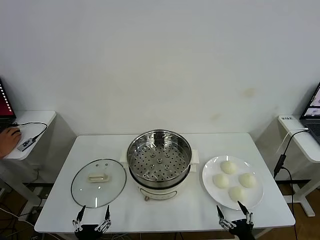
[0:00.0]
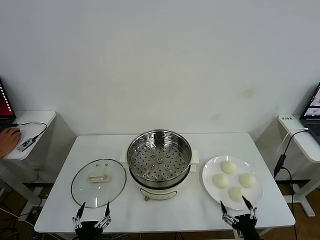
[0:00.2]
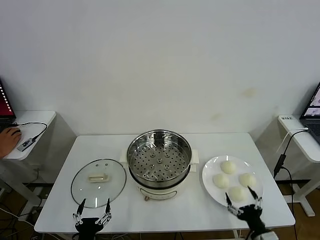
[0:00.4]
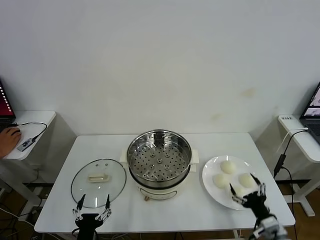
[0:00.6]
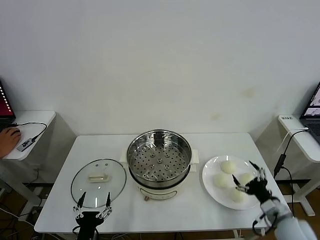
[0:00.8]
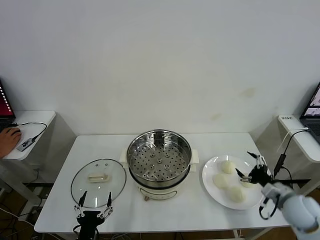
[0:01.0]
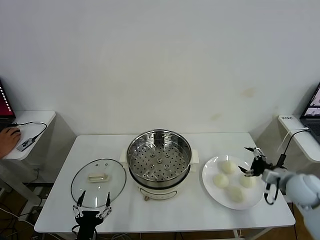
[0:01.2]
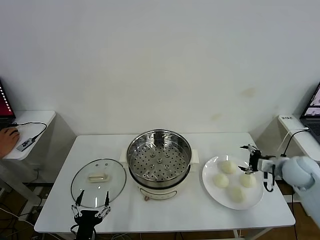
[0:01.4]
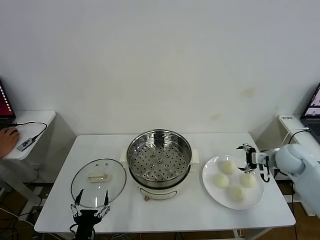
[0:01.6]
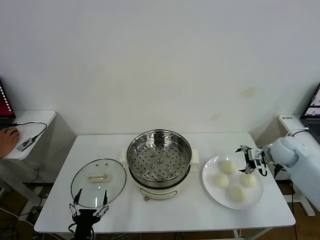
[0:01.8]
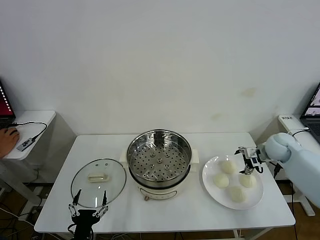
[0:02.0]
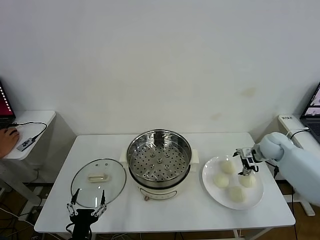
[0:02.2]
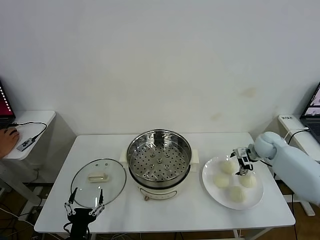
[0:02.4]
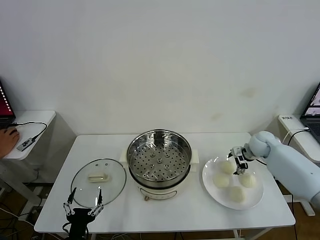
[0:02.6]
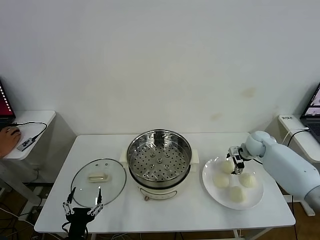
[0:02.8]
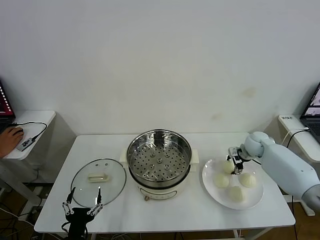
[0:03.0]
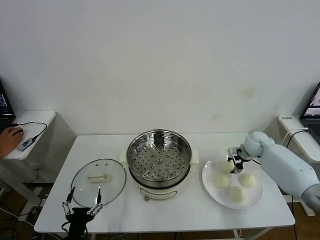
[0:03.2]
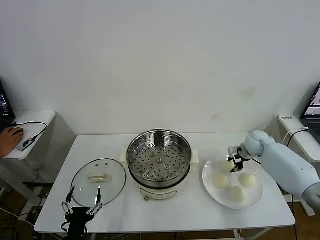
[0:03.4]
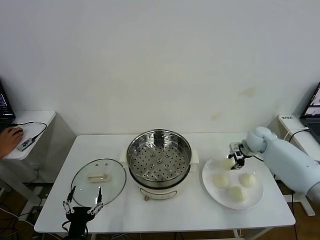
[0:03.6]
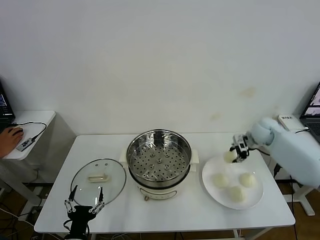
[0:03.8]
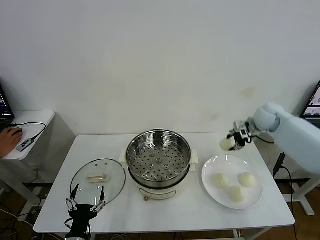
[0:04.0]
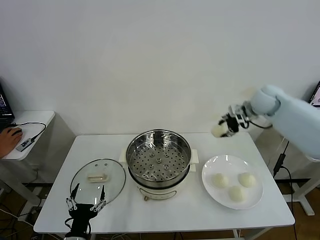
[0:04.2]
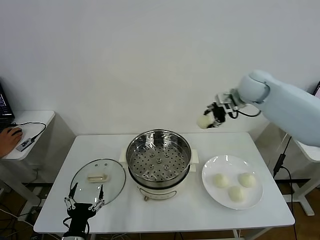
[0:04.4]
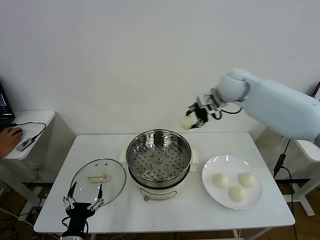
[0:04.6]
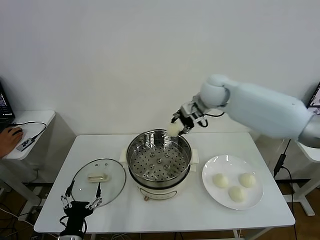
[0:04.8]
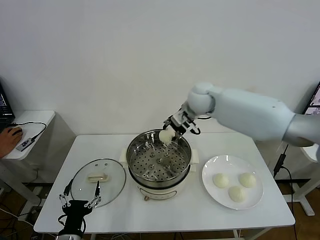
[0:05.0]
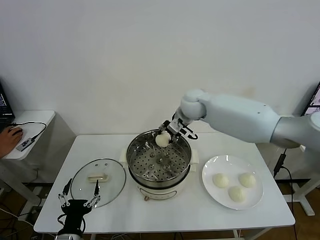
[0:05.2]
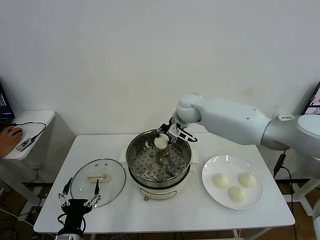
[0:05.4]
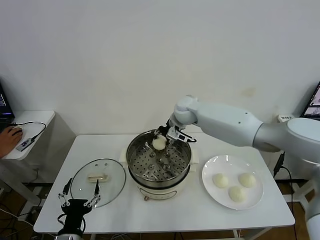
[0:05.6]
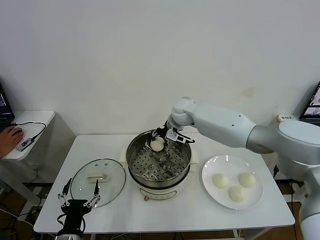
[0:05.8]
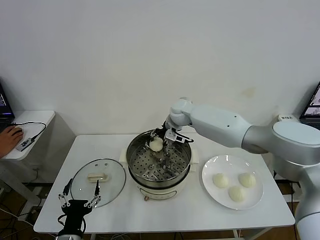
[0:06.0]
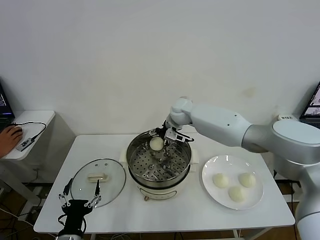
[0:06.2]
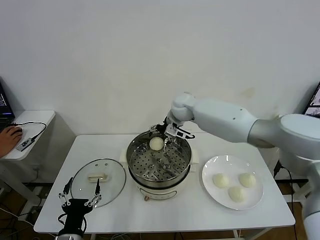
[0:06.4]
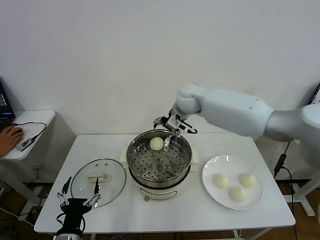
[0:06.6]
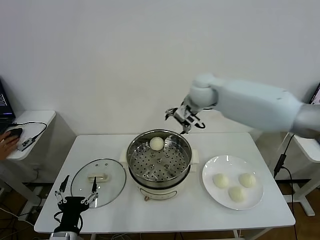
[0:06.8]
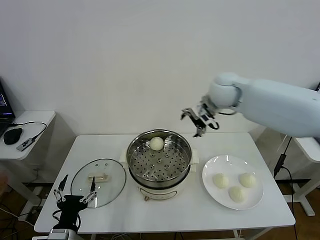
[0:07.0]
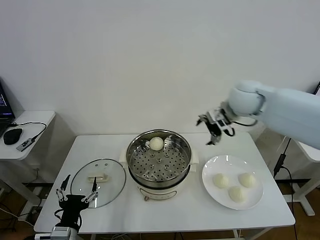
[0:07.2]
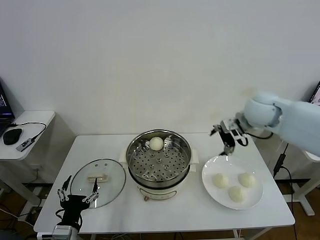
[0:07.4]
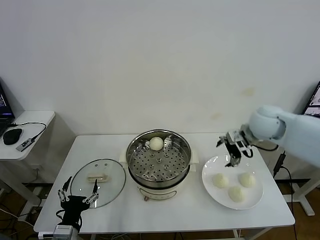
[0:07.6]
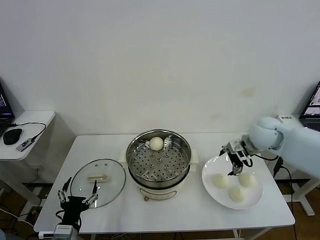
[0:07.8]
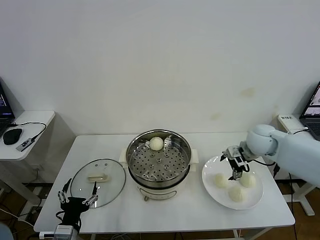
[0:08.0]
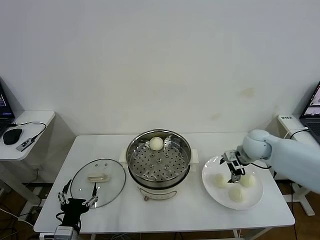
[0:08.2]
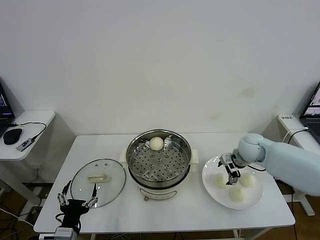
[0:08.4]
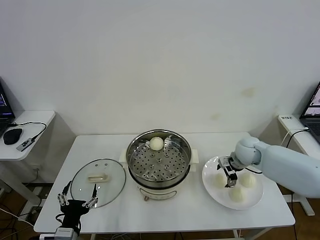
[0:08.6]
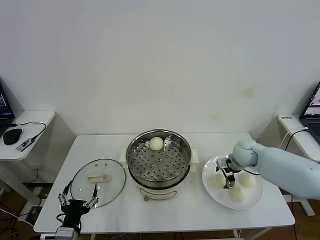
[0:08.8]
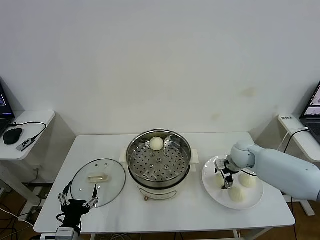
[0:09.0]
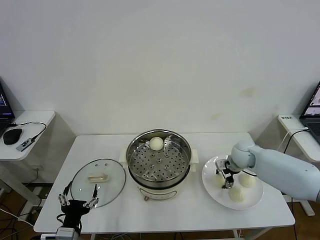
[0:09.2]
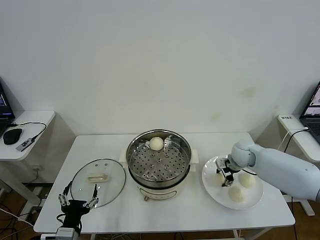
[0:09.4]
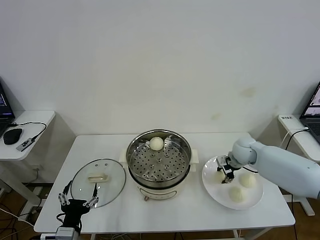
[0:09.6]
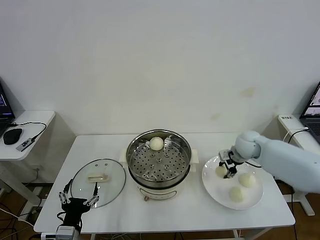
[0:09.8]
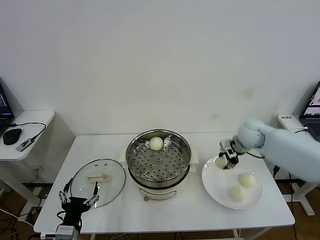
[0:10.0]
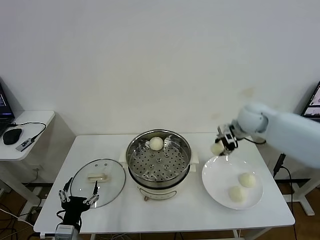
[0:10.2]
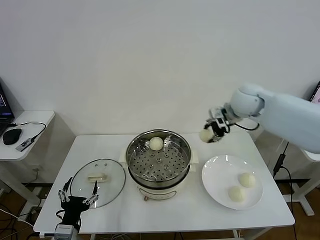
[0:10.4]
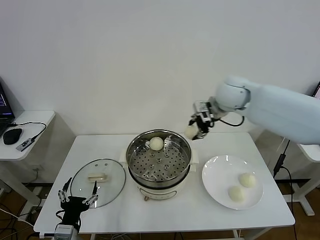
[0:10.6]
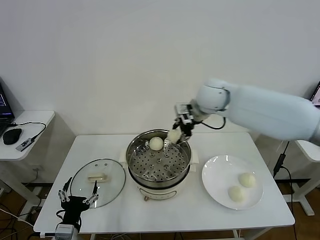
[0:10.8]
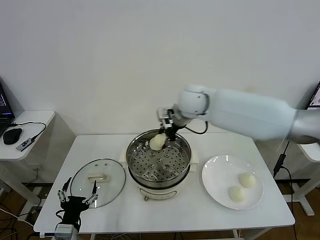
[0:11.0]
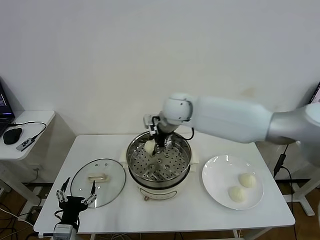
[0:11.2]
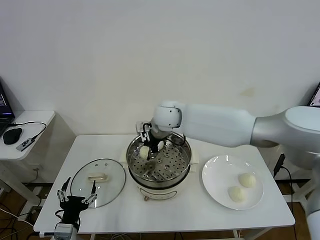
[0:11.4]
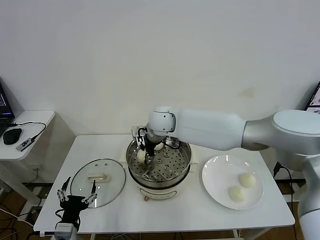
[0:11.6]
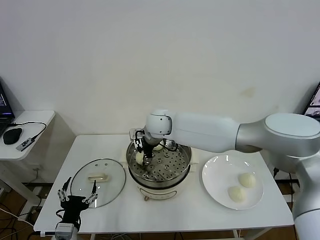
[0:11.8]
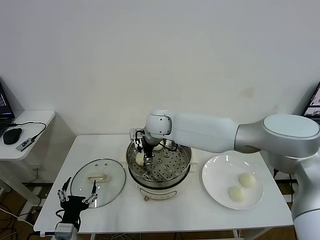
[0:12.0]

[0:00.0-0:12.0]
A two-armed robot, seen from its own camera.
Task of the whole recording: take steamed baozi put them in steamer then cover it.
Step, 0:00.0 to 0:03.2: Grasp the baozi in the plate with right gripper.
Step, 0:03.4 to 0:06.2: Place the baozi on the steamer with right gripper.
Step, 0:06.4 to 0:09.4: Grasp the baozi in the plate with right gripper.
0:01.6 to 0:03.0: The right gripper travels forward and downward by some 10 cm, and closes up.
0:03.0 to 0:04.4: The right gripper heads upward and to the left, covering some 30 cm.
0:04.4 to 0:06.0: The right gripper travels to the left and downward by approximately 20 cm, and opens its fingers.
0:06.0 to 0:07.6: The right gripper moves to the right and backward, roughly 30 cm, and opens.
0:07.6 to 0:09.0: The right gripper moves downward, approximately 15 cm.
0:09.0 to 0:10.4: The right gripper goes some 25 cm upward, and closes.
0:10.4 to 0:12.0: The right gripper moves to the left and downward, approximately 25 cm, and opens.

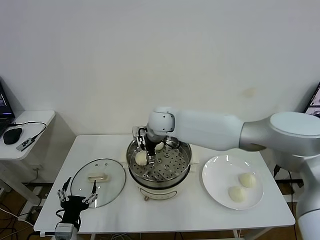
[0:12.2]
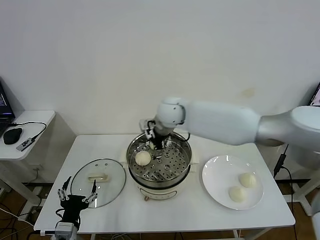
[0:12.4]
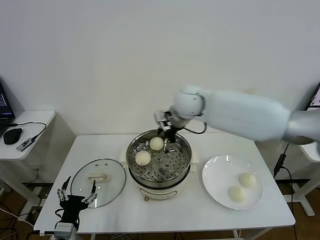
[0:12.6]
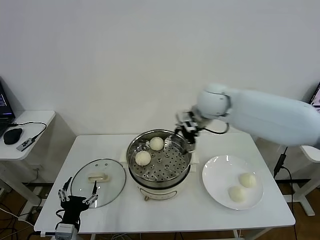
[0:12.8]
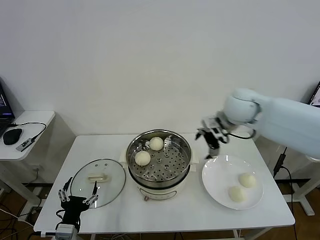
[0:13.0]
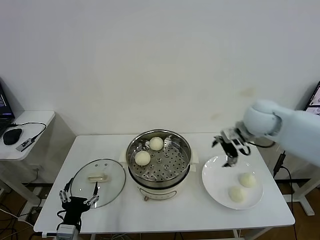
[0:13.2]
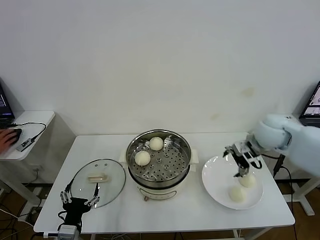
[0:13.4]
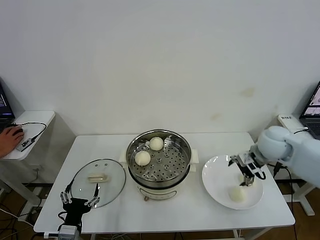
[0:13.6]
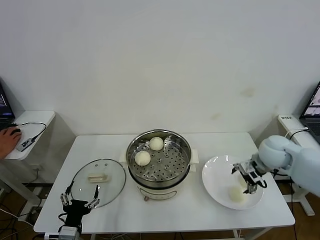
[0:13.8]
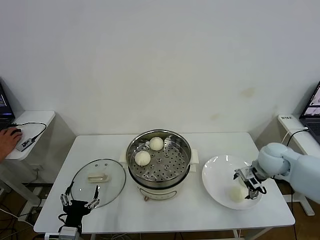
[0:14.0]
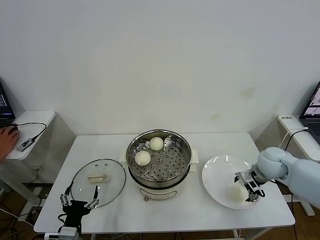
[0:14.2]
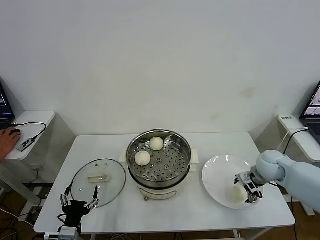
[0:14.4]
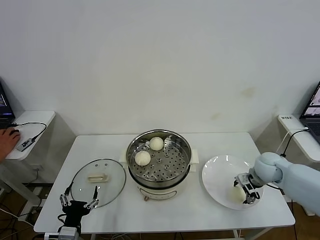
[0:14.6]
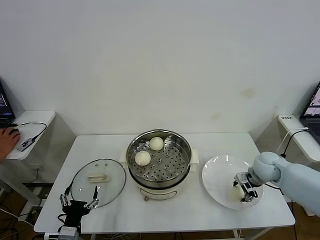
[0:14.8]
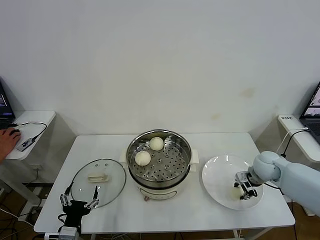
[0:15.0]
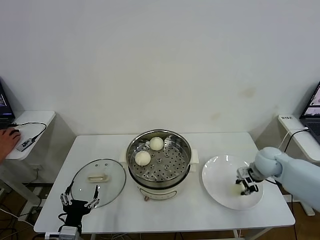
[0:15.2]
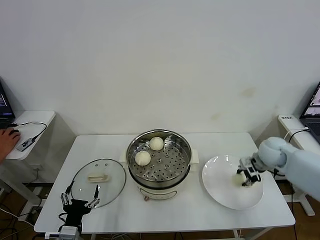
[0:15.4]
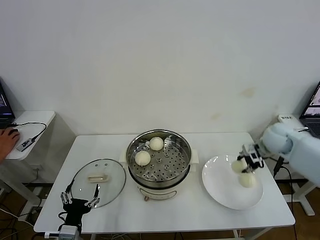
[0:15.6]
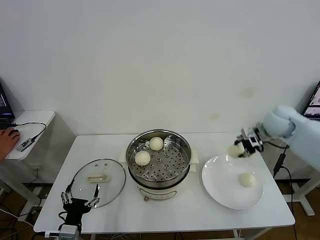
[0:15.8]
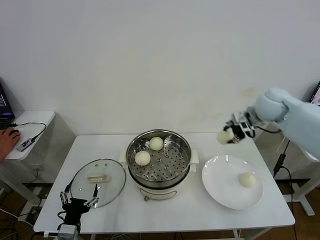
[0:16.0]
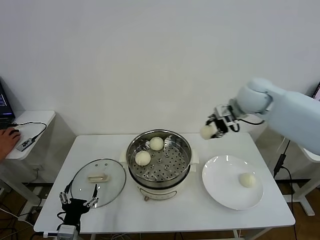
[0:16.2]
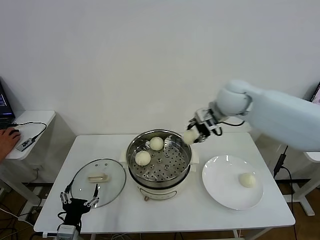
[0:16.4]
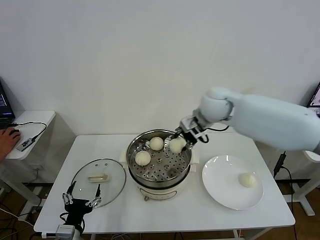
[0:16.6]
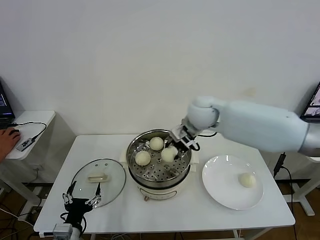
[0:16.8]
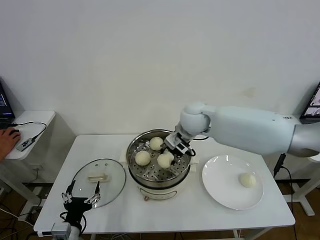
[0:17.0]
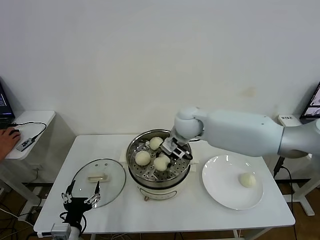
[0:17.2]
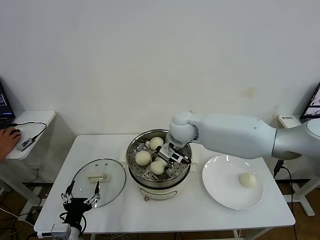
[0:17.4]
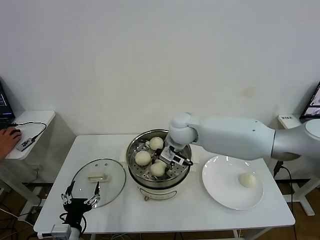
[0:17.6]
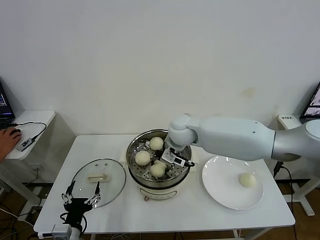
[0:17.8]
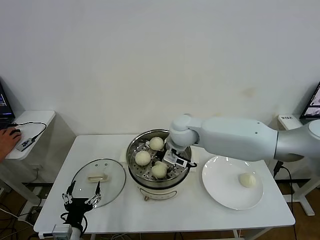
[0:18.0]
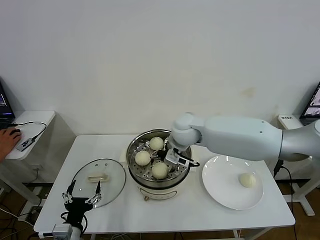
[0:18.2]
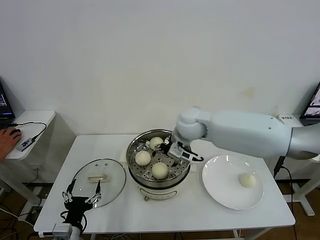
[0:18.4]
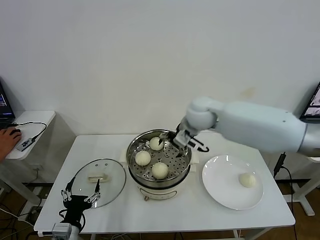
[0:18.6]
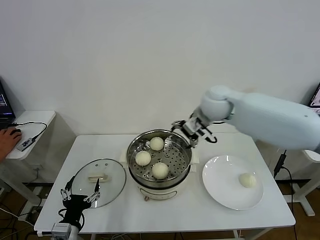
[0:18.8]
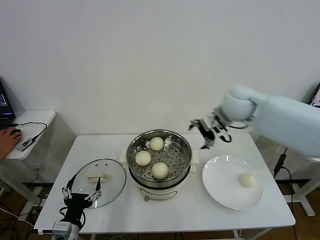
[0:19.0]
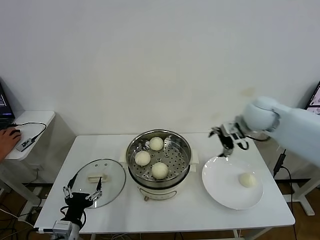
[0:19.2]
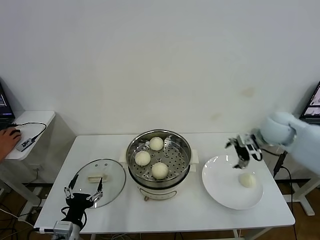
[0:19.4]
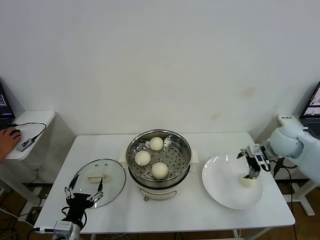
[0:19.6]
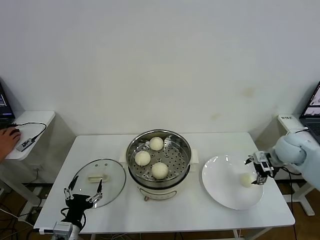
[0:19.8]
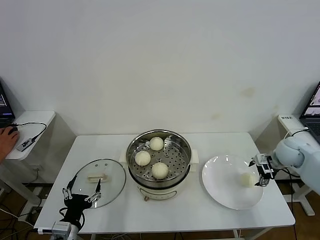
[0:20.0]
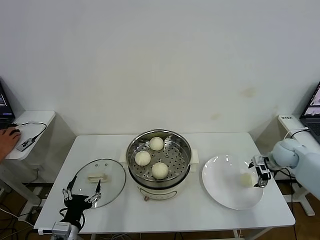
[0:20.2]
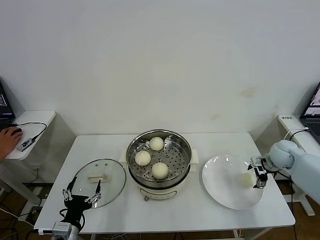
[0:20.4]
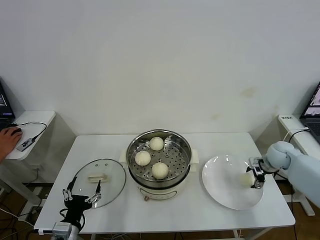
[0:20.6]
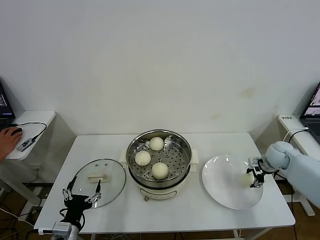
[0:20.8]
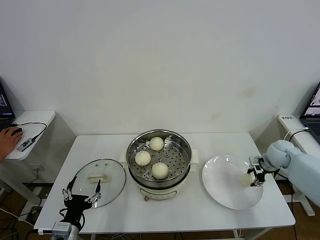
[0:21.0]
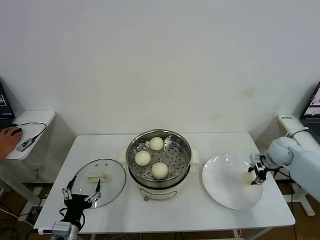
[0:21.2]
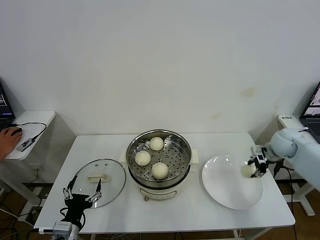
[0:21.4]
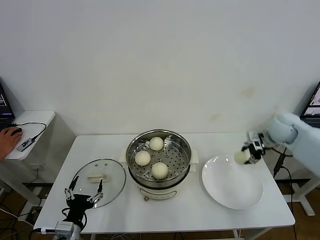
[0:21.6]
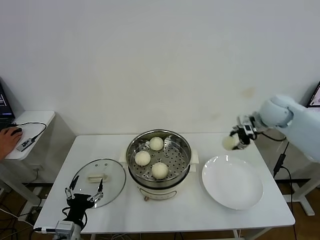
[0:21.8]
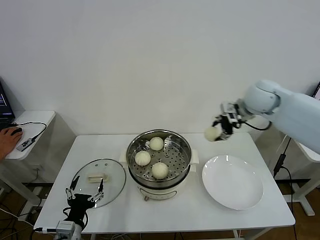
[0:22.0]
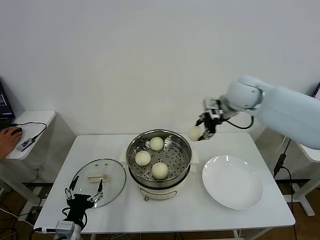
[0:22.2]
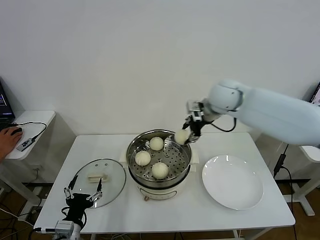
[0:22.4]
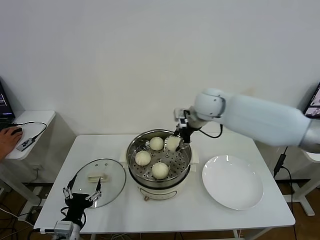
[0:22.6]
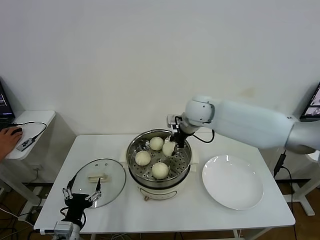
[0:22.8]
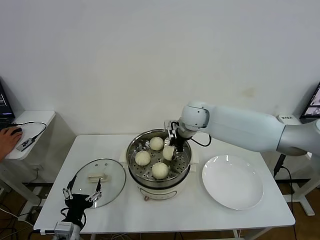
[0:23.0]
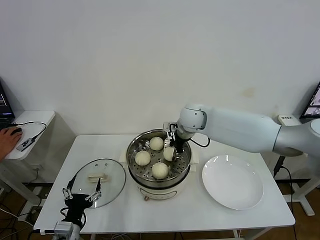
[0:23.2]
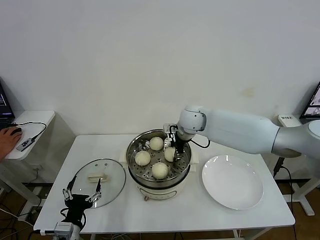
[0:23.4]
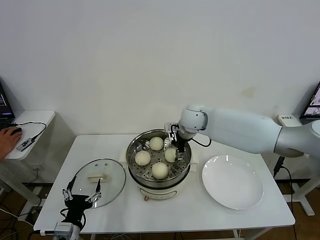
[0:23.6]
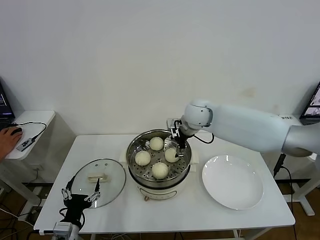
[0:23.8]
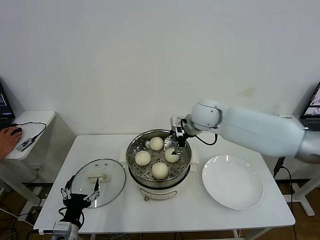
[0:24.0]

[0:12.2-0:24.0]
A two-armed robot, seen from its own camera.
Task of the whole recording: take steamed baozi put them in steamer then cover it.
Step, 0:12.2 to 0:15.0: Grasp the baozi in the plate with right gripper.
Step, 0:15.2 to 0:18.2: Place the baozi on the steamer with right gripper.
Step, 0:18.4 to 0:21.0: Grasp the baozi in the plate with right gripper.
Step, 0:21.2 to 0:23.6: Place the baozi on the steamer with right gripper.
0:12.2 to 0:13.6: The right gripper travels to the right by roughly 35 cm.
0:13.6 to 0:15.2: The right gripper shifts about 10 cm downward, and closes its fingers.
0:15.2 to 0:16.6: The right gripper shifts some 30 cm to the left and upward.
0:16.6 to 0:18.2: The right gripper goes about 10 cm to the left and downward, and opens.
0:18.2 to 0:19.6: The right gripper heads to the right, covering roughly 30 cm.
0:19.6 to 0:21.0: The right gripper heads downward, covering roughly 10 cm, and closes up.
0:21.0 to 0:22.6: The right gripper goes roughly 35 cm to the left and upward.
0:22.6 to 0:24.0: The right gripper opens its fingers.
